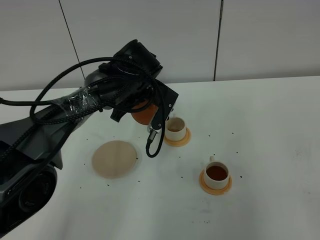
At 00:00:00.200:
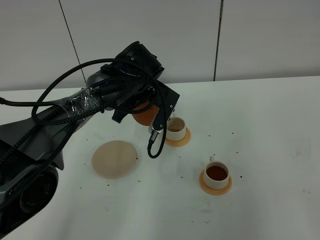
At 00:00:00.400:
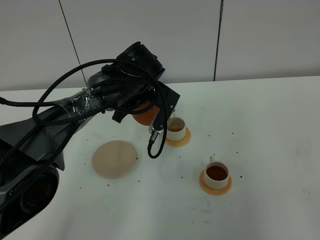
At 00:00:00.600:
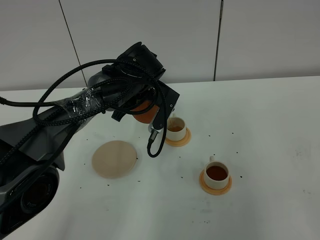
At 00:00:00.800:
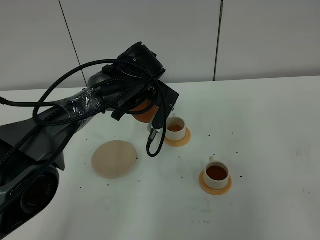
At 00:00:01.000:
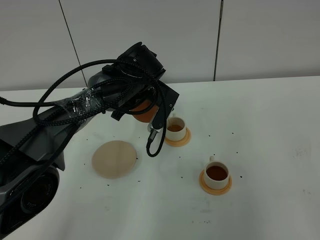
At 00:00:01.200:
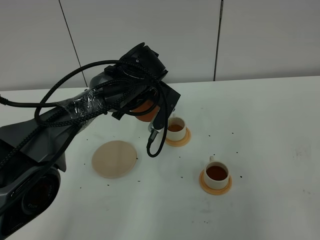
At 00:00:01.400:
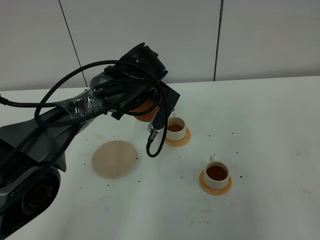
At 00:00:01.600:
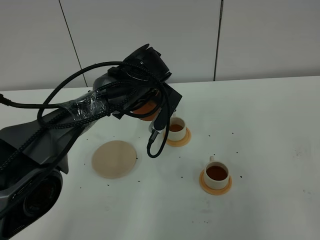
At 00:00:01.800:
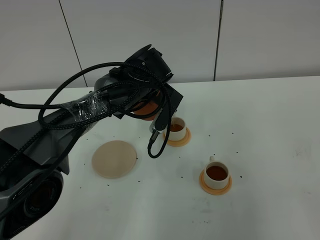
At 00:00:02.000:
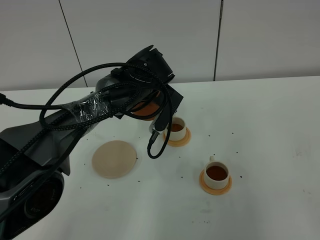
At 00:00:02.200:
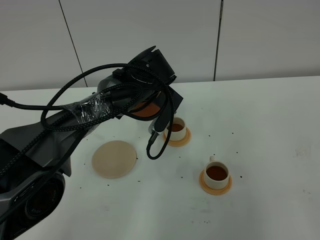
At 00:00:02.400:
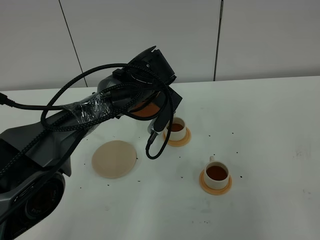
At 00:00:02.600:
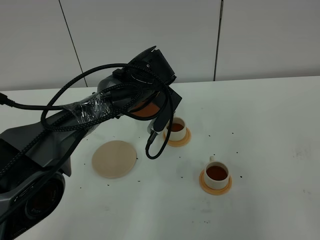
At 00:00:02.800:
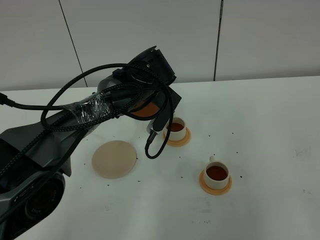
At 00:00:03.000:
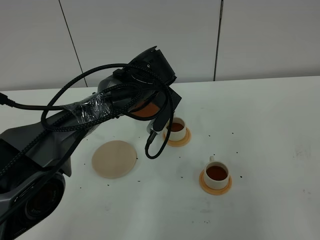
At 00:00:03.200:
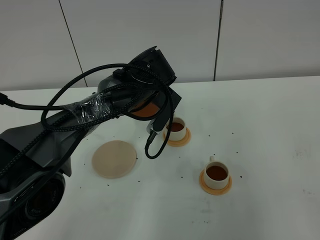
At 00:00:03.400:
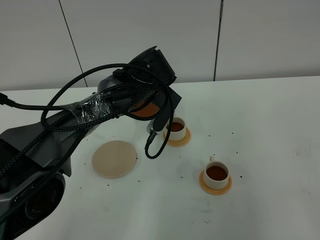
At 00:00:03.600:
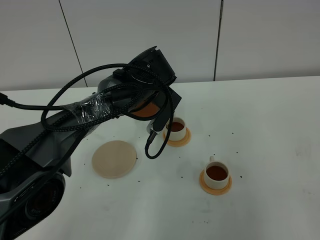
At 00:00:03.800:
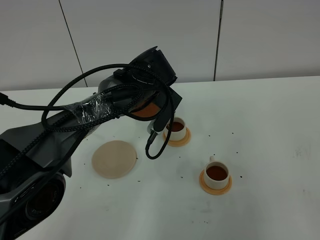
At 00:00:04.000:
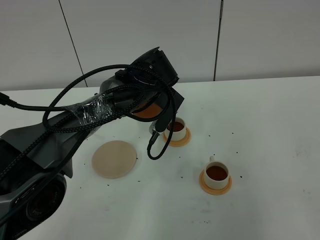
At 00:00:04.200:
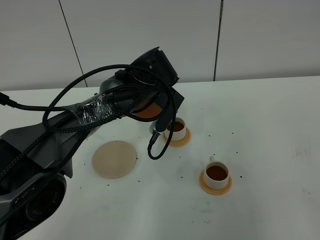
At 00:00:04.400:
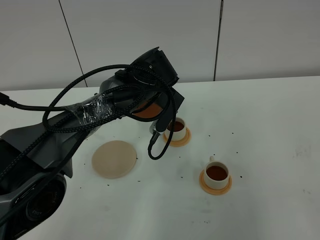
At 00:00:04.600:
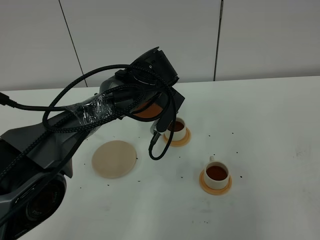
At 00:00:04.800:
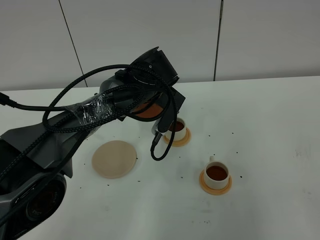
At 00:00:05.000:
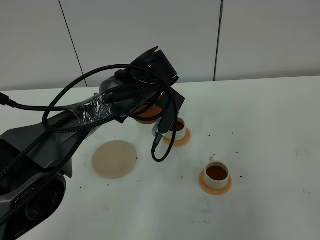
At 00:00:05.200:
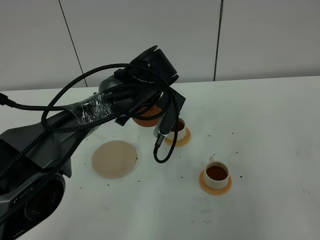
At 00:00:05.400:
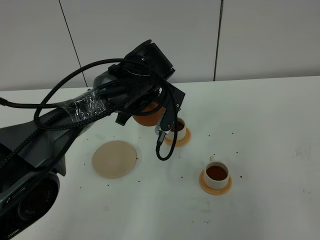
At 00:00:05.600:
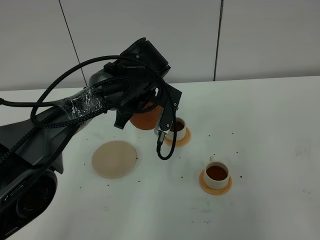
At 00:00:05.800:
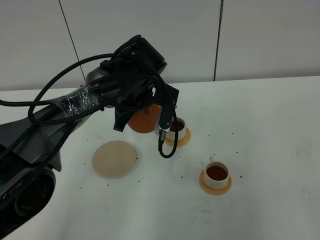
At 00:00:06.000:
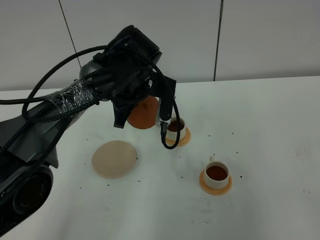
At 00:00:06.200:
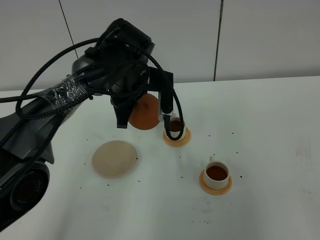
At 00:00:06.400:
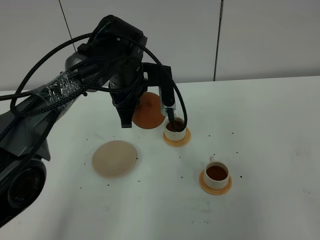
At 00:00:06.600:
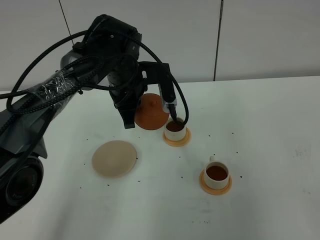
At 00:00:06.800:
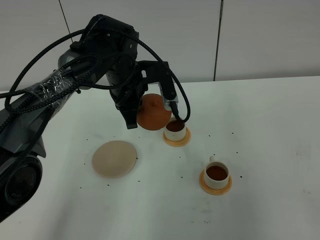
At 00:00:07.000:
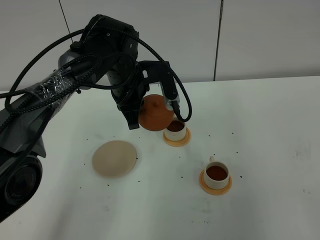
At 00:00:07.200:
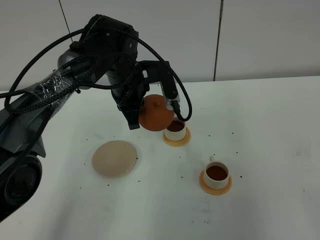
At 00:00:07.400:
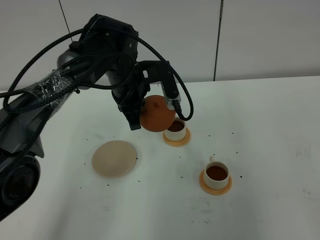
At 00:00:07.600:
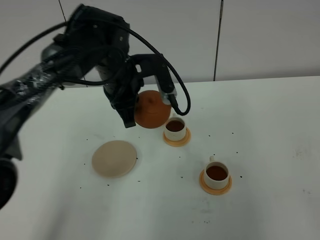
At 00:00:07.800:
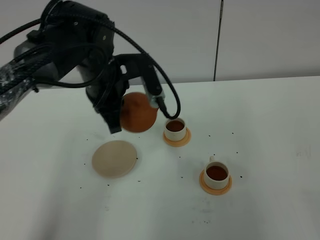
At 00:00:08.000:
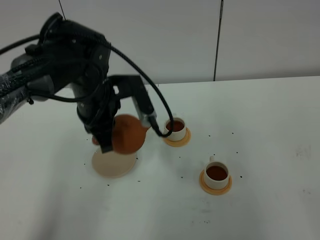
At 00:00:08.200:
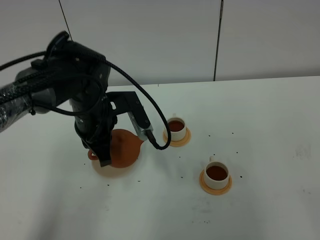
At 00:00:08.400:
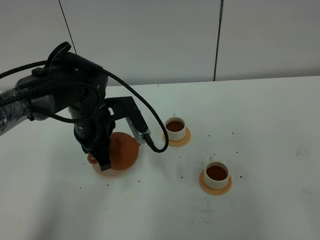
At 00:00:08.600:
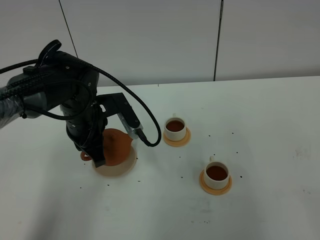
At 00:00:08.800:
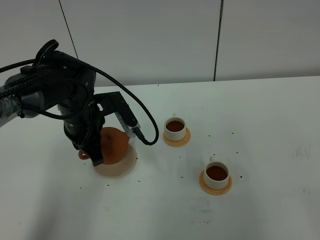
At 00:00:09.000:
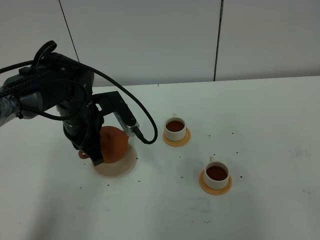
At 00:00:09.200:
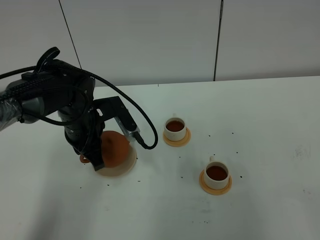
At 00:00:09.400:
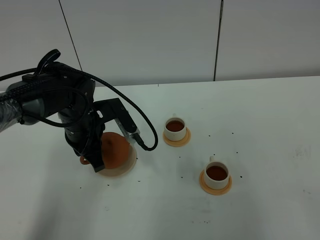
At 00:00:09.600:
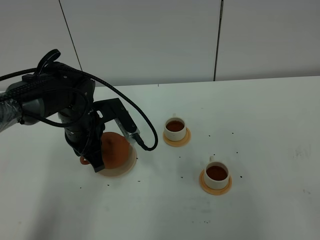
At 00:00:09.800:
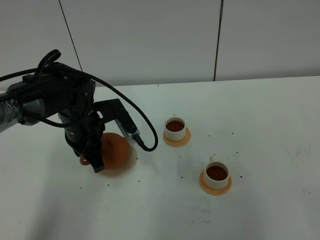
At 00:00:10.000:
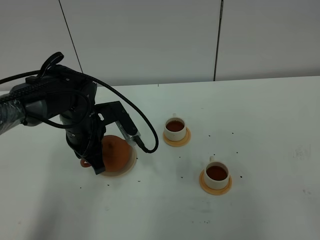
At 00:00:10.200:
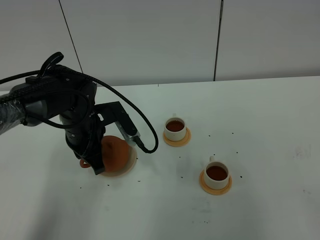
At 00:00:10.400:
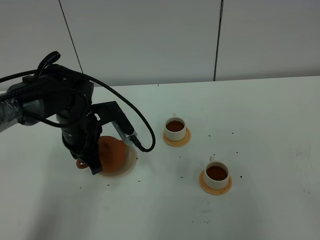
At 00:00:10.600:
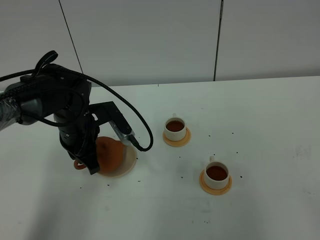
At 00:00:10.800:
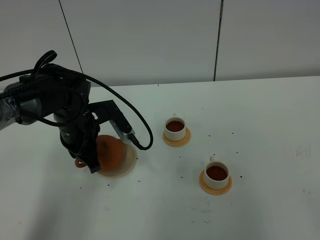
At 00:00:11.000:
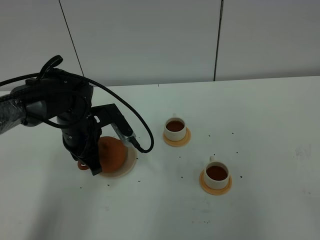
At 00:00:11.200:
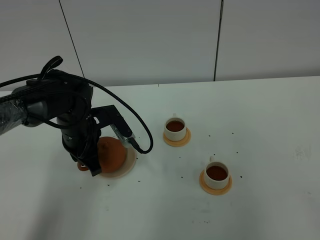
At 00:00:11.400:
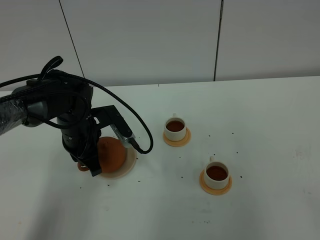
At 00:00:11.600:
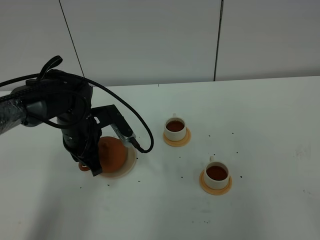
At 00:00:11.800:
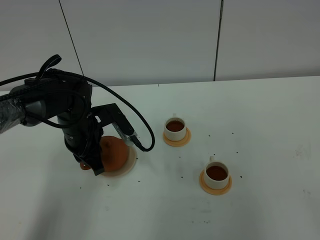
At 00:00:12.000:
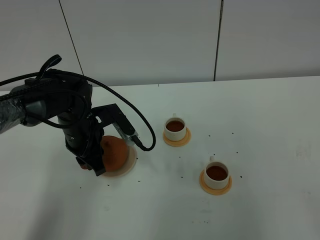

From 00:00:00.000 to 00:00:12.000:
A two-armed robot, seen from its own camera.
Task of the whole recording: grasp the brown teapot and pour the tea into the two white teacups one by one, put the brown teapot back in its original place.
Step, from 00:00:00.000 to 00:00:07.200: Pour tea into the teacup with the left gripper.
From 00:00:00.000 to 00:00:01.600: There are only small adjustments of the grippers.
From 00:00:01.600 to 00:00:04.400: Both grippers stay put.
From 00:00:07.600 to 00:00:09.000: The left gripper moves to the left and downward, approximately 10 cm.
From 00:00:09.000 to 00:00:10.400: There are only small adjustments of the grippers.
From 00:00:10.400 to 00:00:12.000: The left gripper opens up.

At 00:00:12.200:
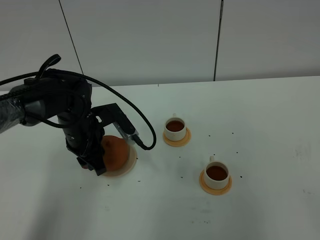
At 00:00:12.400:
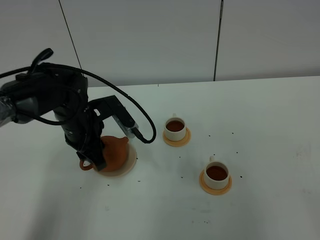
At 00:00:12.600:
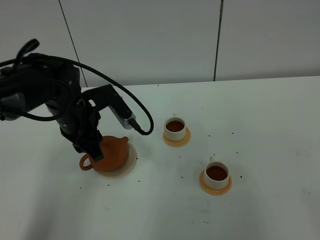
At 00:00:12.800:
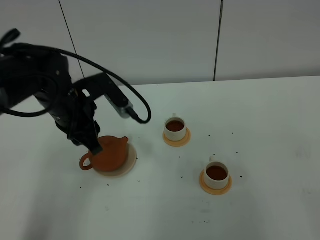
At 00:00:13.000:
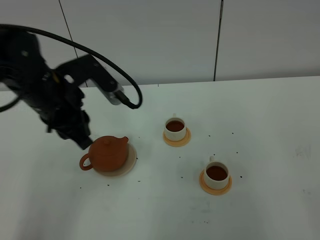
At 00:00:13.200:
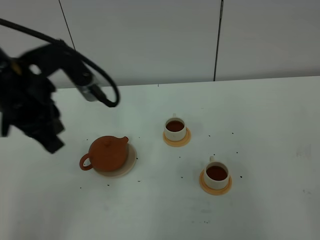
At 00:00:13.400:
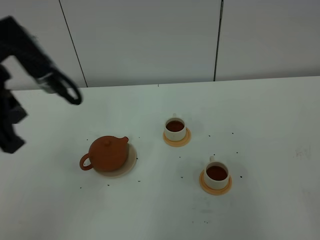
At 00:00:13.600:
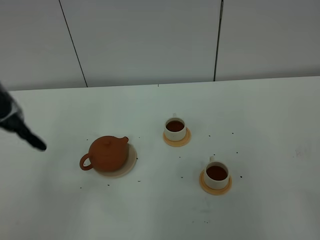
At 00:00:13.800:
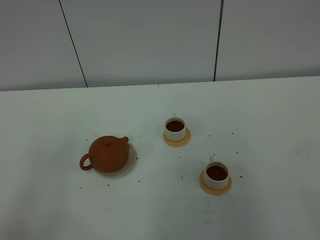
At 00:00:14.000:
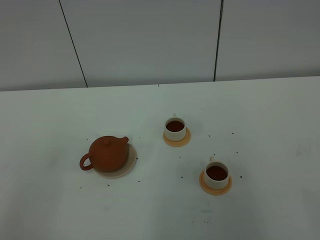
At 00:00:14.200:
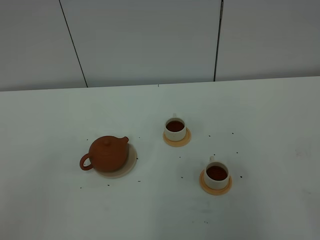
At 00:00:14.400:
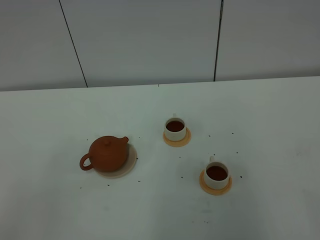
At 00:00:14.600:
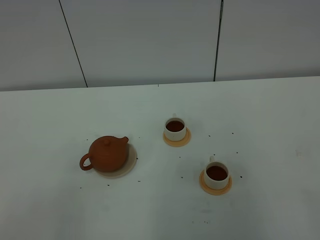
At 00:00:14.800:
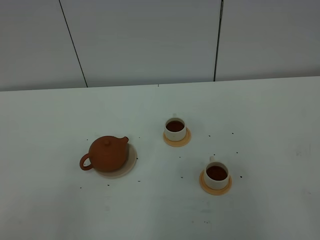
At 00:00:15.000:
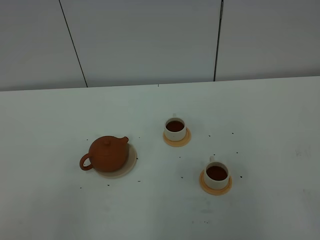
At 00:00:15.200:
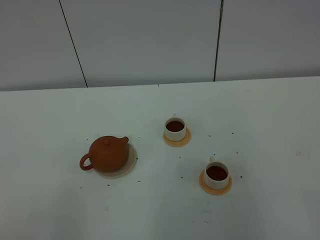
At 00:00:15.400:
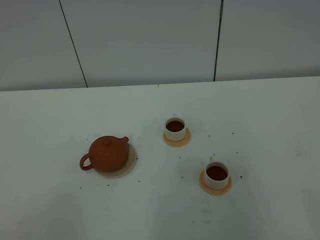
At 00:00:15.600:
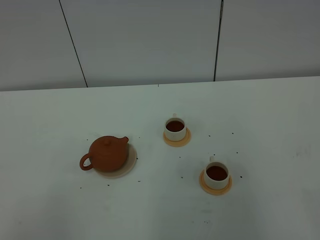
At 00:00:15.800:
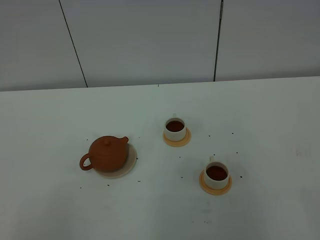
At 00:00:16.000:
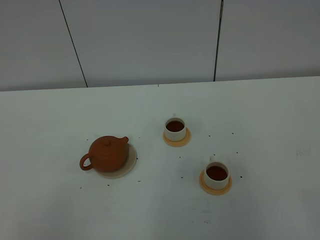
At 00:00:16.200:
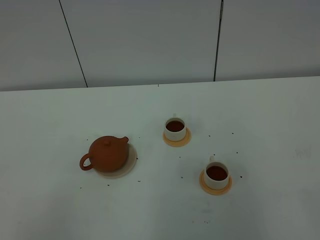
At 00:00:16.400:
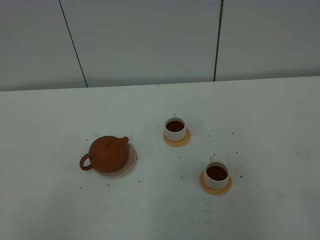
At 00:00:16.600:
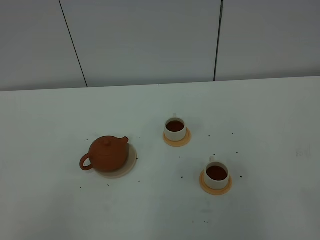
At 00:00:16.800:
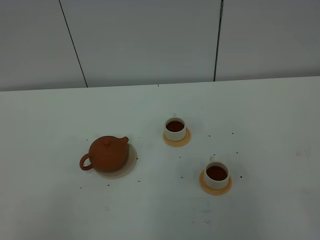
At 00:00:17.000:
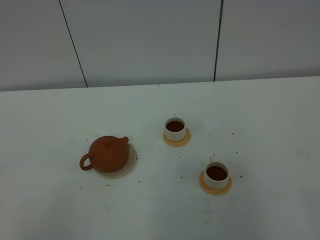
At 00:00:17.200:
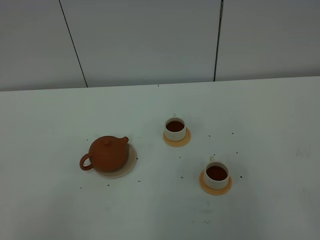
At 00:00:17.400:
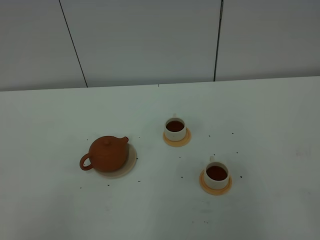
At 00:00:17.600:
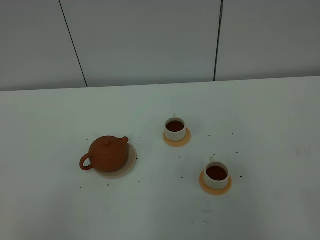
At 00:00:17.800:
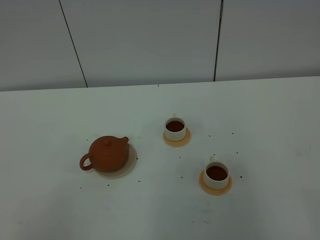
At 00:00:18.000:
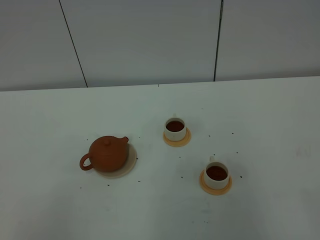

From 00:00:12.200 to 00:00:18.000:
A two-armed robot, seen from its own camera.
Task of the whole recording: grasp the brown teapot and pour the tea into the two white teacups one by one, put the brown teapot back in its original place.
From 00:00:12.200 to 00:00:13.600: The left gripper goes about 30 cm upward and backward, and closes up.
From 00:00:13.600 to 00:00:15.000: The left gripper shifts approximately 20 cm backward and downward.
From 00:00:16.600 to 00:00:18.000: Both grippers stay put.
